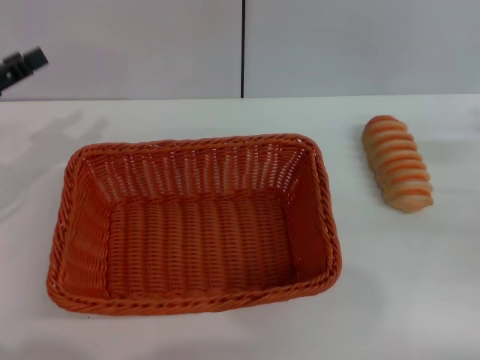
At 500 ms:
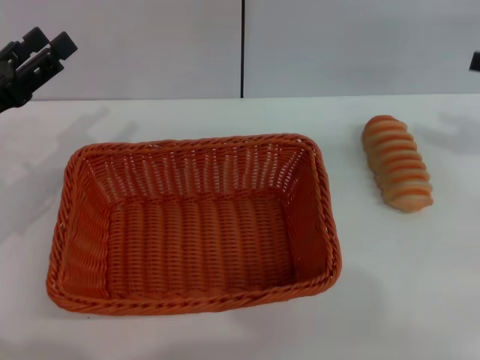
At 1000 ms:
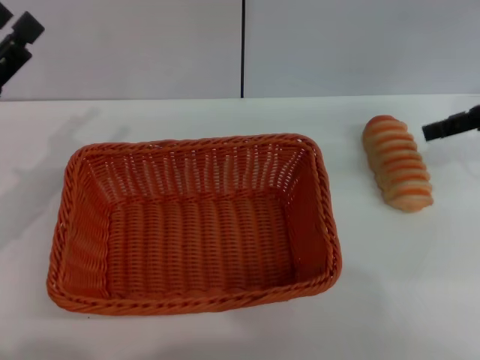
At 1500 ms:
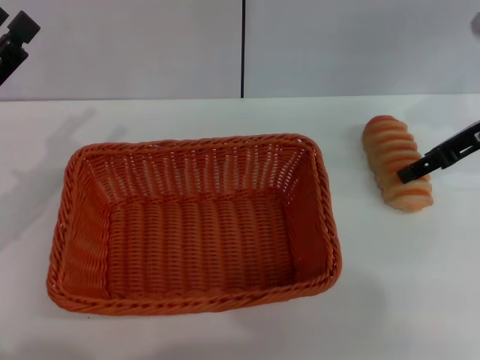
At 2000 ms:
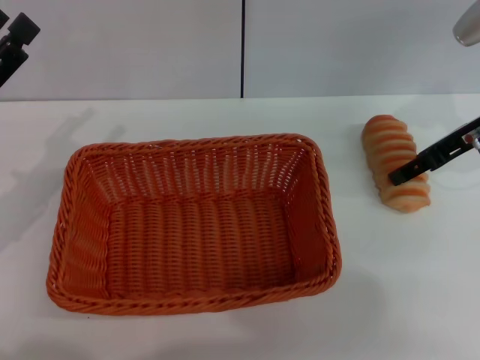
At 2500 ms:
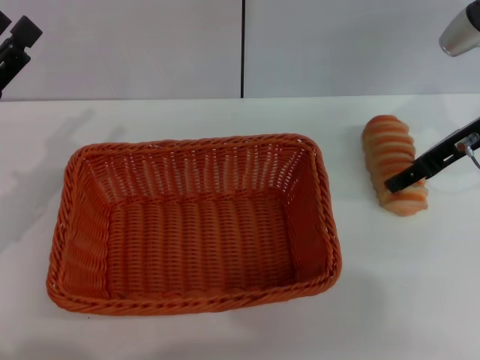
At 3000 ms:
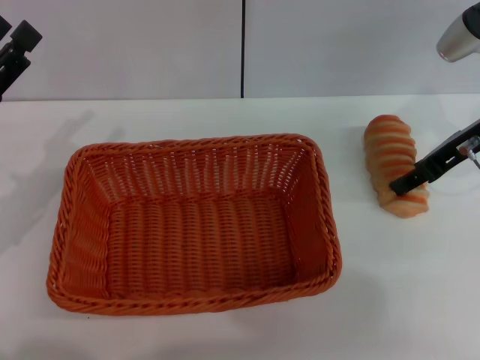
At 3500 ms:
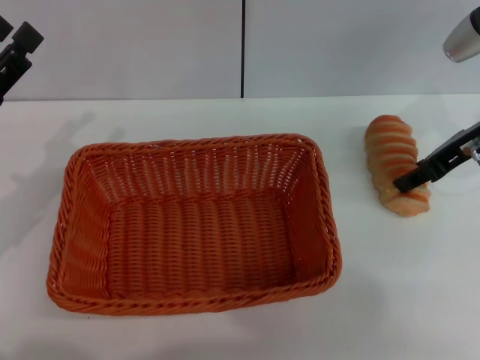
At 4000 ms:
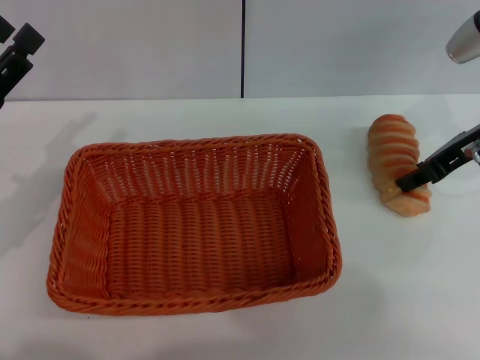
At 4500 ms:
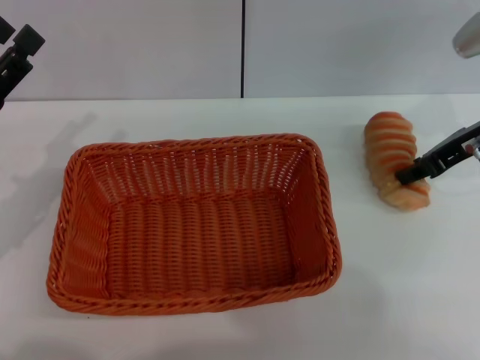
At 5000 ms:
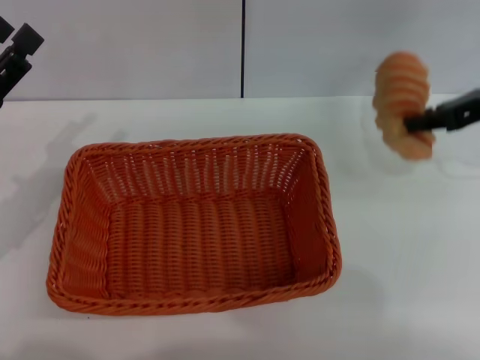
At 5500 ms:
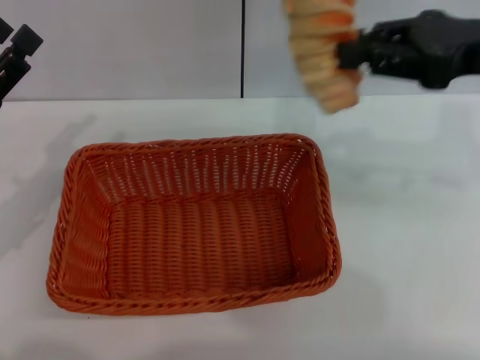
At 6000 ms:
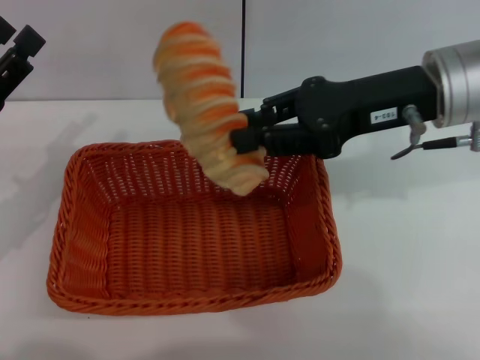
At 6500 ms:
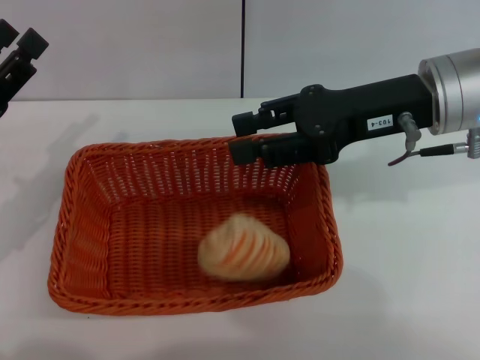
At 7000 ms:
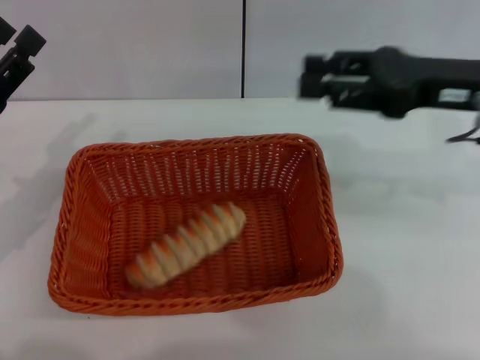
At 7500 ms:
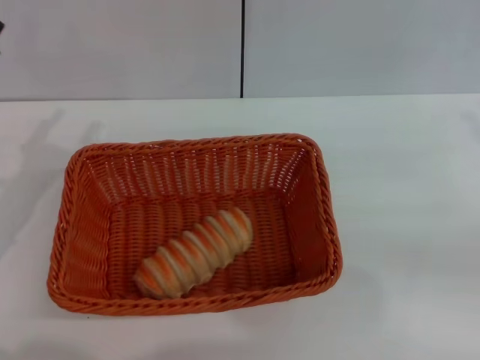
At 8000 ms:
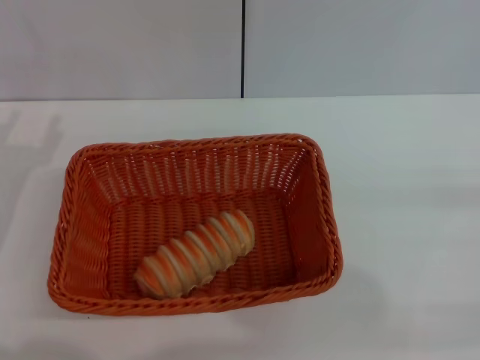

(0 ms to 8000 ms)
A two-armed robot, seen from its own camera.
Step, 0 ms - 5000 ms: Pick up the long bread with the right gripper.
Step, 5500 ms - 6500 ms: Place the long bread into the light basket with the right gripper.
0 ms - 2000 ms: The right gripper shifts about 15 cm forward, to the left and upward.
2000 ms - 4000 ms: The right gripper closes.
4000 ms - 6000 ms: The right gripper goes roughly 10 cm to the left and upward.
6000 ms - 8000 ms: The right gripper shifts about 30 cm to the right, backward and downward, and opens.
